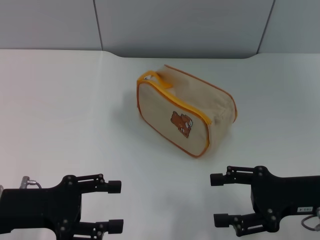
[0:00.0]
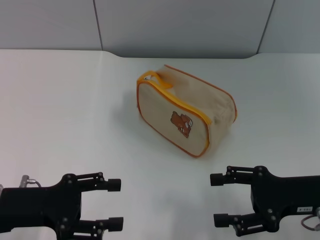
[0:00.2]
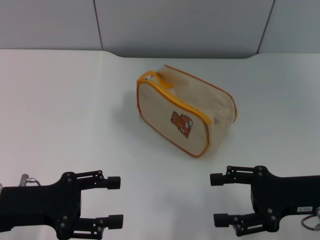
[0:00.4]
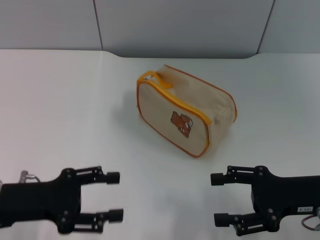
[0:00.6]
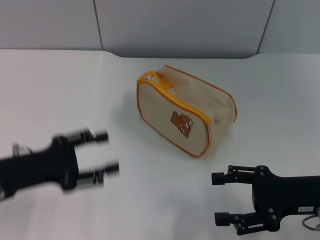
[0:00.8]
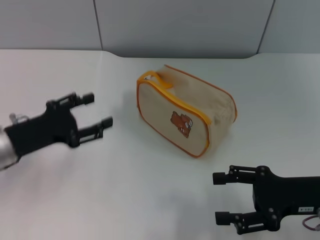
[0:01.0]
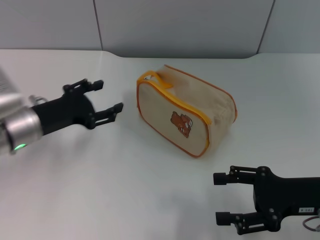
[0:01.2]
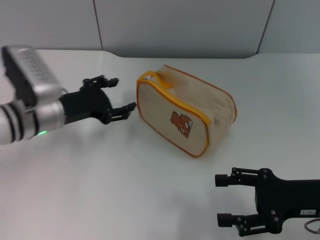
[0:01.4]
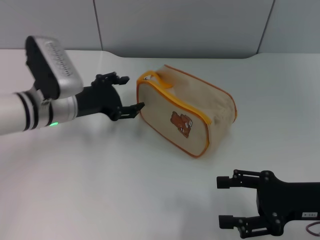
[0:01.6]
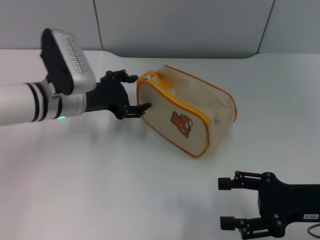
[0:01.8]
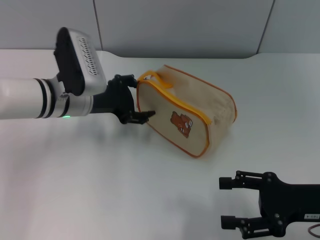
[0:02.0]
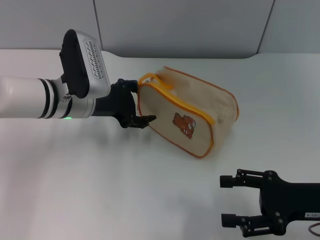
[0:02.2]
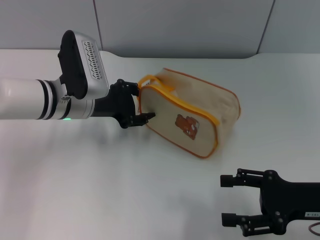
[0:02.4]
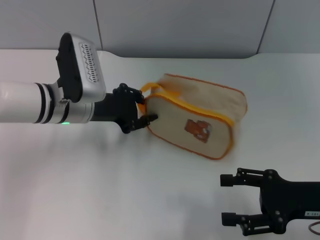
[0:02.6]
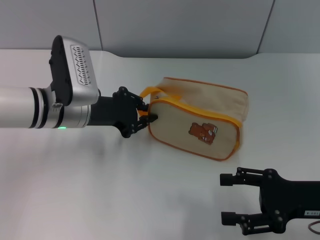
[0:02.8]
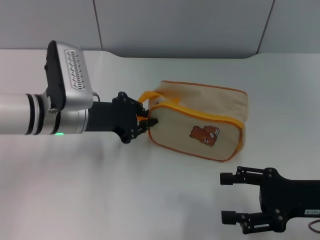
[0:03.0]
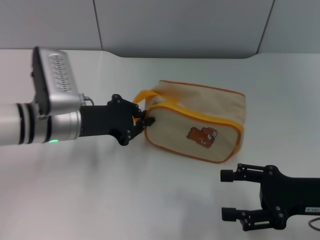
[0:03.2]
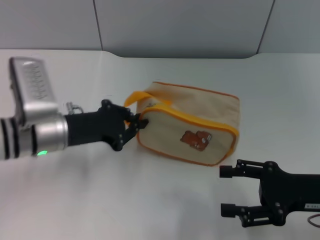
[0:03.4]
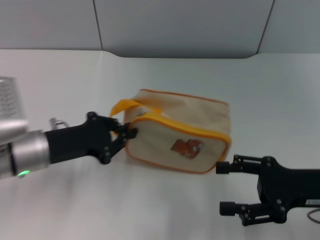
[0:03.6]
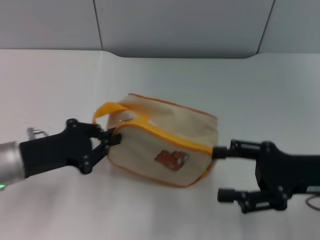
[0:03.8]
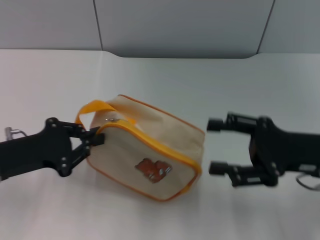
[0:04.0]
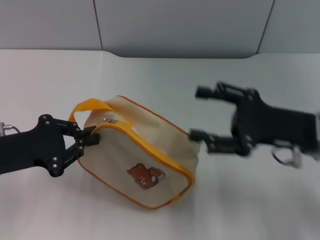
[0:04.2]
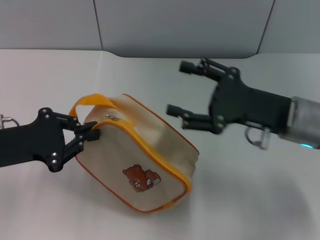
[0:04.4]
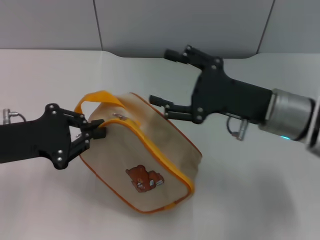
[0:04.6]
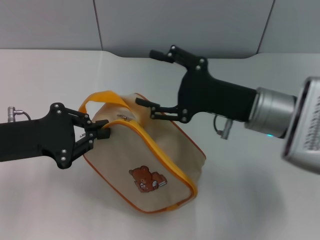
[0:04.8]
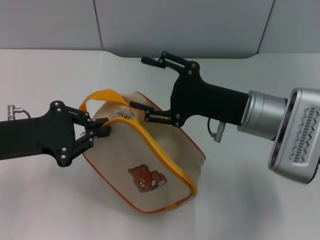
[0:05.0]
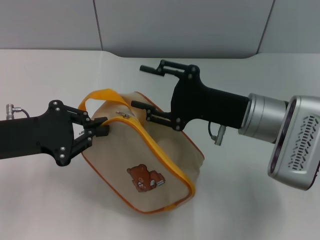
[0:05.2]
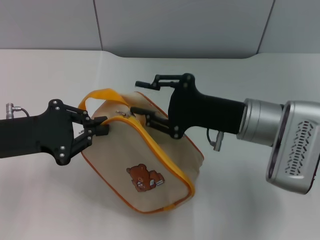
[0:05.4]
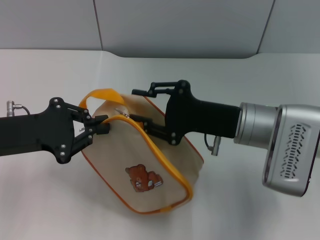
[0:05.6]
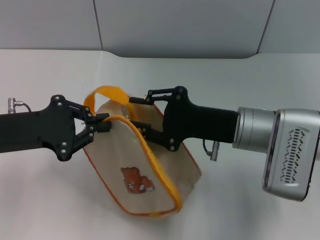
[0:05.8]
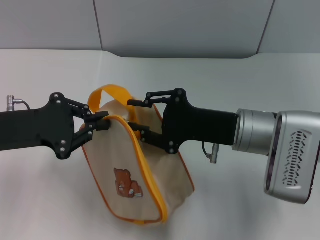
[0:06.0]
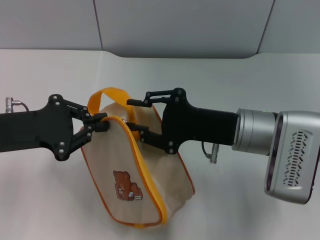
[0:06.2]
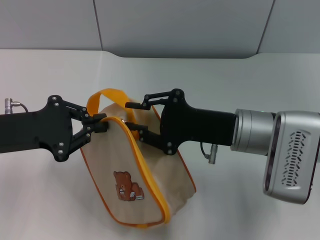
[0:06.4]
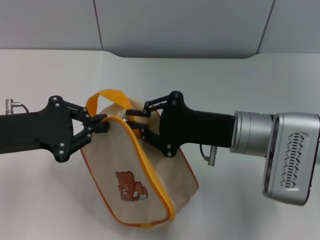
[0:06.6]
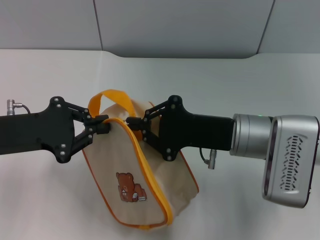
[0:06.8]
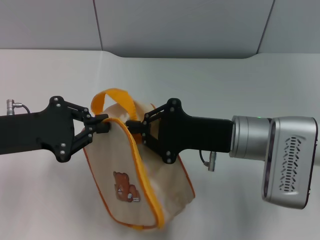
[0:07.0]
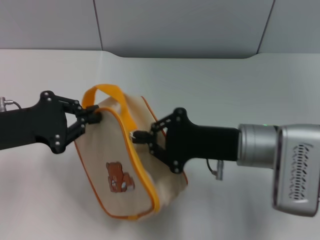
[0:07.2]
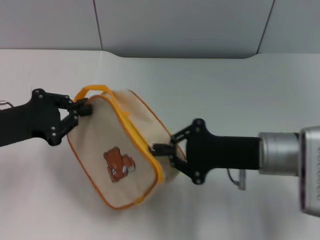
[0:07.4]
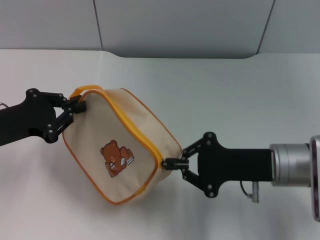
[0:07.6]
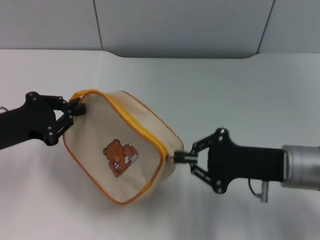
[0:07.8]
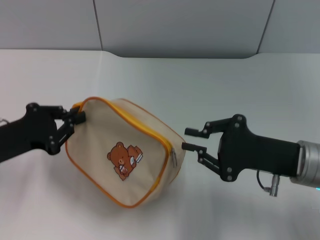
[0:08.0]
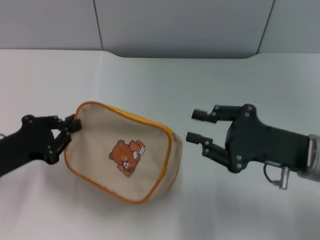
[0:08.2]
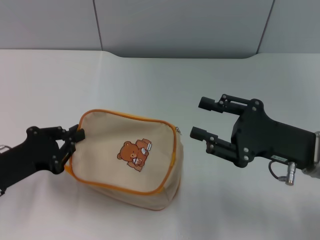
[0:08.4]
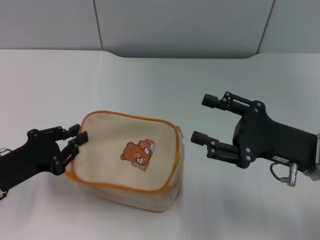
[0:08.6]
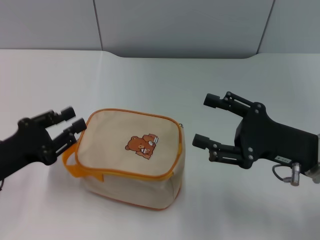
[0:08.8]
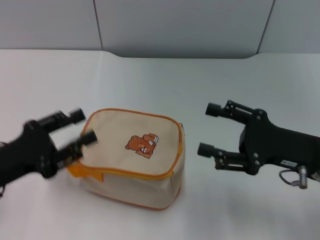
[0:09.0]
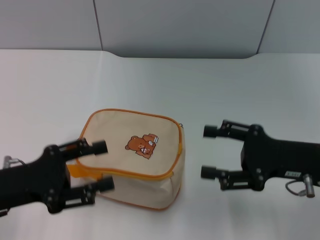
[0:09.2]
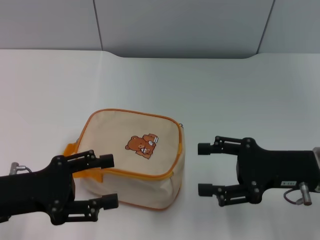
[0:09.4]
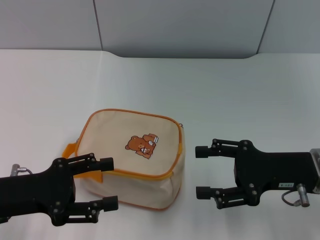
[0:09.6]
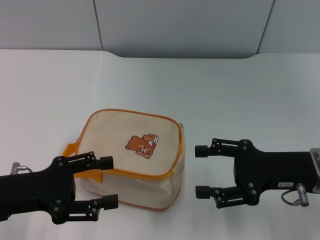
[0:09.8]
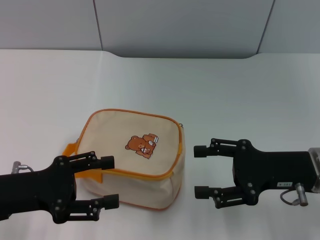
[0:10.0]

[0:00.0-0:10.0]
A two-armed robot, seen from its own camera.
Step, 0:00.0 to 0:04.2: Pick up the bag with left gripper.
Step, 0:04.4 to 0:08.0: Unzip the zipper of bag with right gripper.
Step, 0:08.2 to 0:08.6: Place the bag on the table with left gripper.
0:00.0 to 0:01.4: The left gripper travels forward by about 15 cm.
0:01.4 to 0:02.8: The left gripper closes up.
0:02.8 to 0:04.2: The right gripper heads forward, covering some 5 cm; the left gripper is displaced to the left and backward by roughly 15 cm, and closes its fingers.
0:04.2 to 0:05.8: The right gripper is displaced to the left by roughly 10 cm, and closes its fingers.
0:05.8 to 0:07.2: The right gripper closes its fingers.
0:07.2 to 0:08.6: The left gripper shifts about 10 cm downward. Meanwhile the right gripper heads to the right, covering approximately 10 cm, and opens its fingers.
0:08.6 to 0:10.0: The left gripper opens its fingers.
